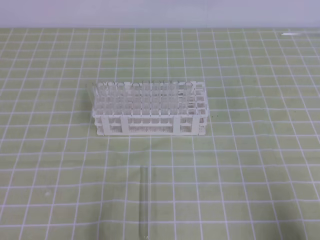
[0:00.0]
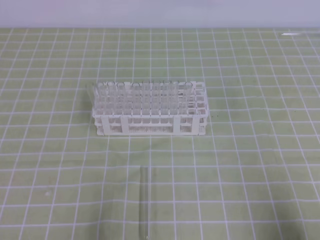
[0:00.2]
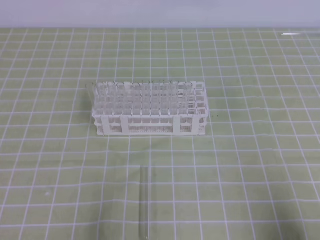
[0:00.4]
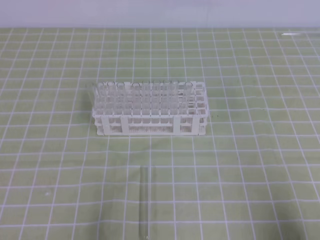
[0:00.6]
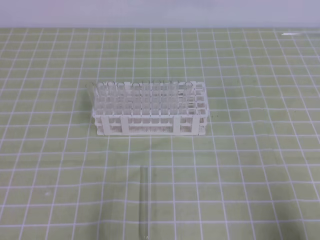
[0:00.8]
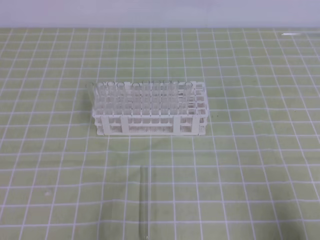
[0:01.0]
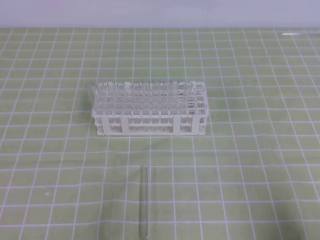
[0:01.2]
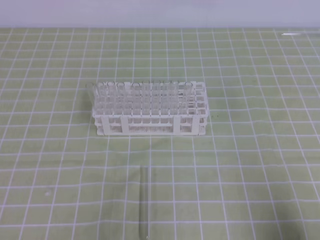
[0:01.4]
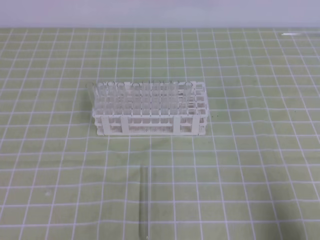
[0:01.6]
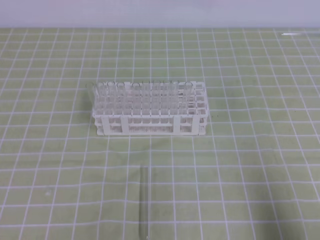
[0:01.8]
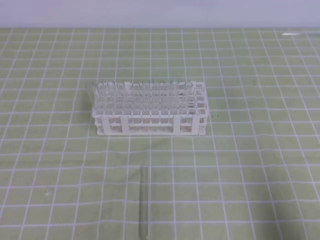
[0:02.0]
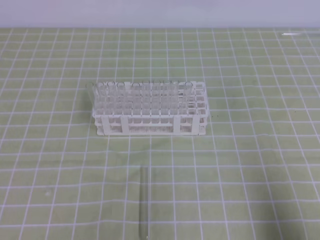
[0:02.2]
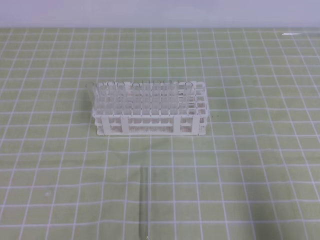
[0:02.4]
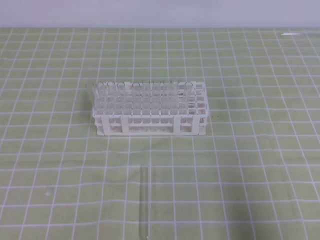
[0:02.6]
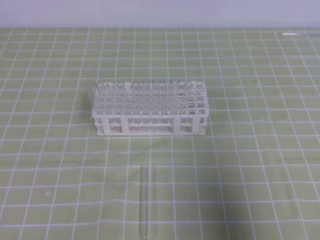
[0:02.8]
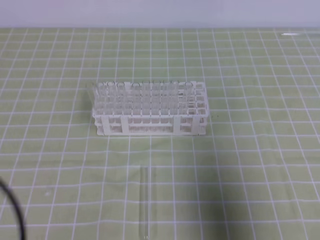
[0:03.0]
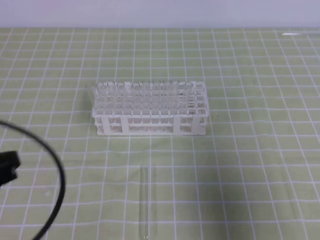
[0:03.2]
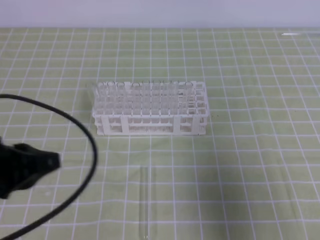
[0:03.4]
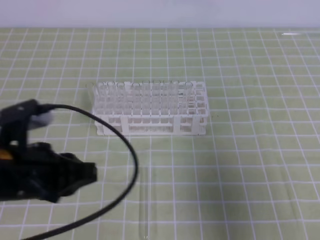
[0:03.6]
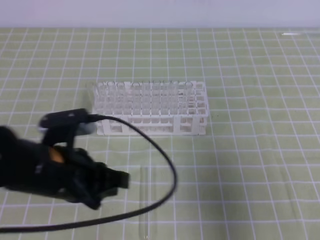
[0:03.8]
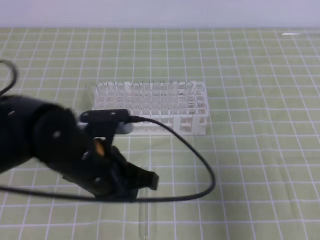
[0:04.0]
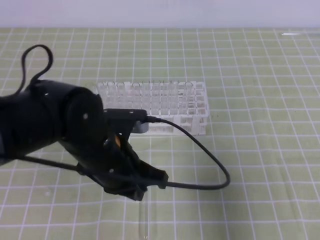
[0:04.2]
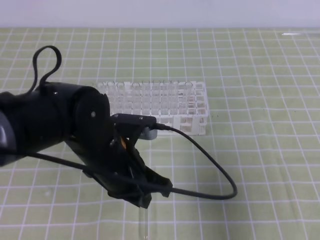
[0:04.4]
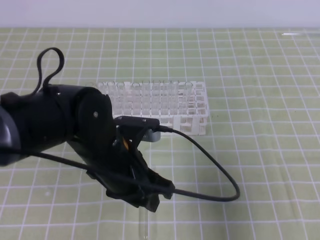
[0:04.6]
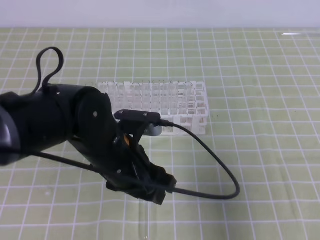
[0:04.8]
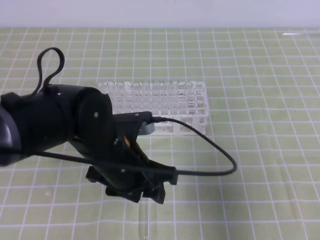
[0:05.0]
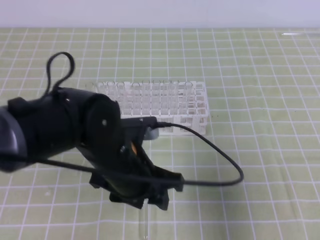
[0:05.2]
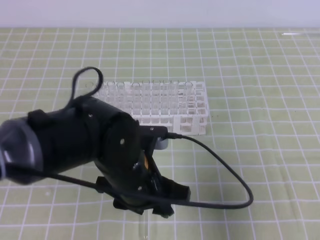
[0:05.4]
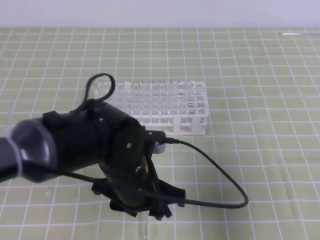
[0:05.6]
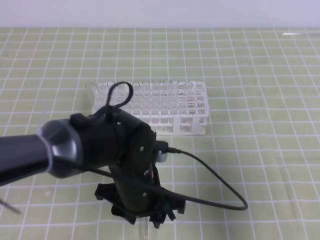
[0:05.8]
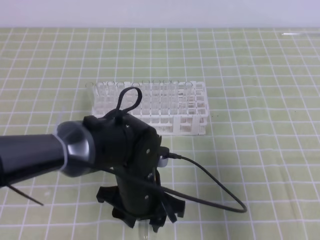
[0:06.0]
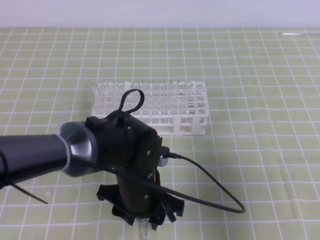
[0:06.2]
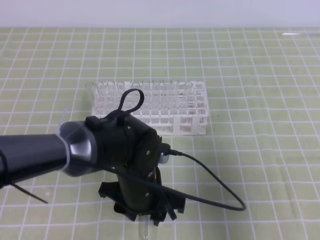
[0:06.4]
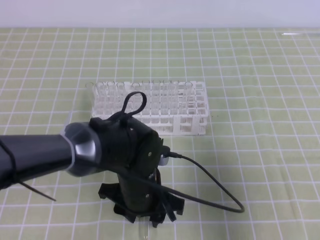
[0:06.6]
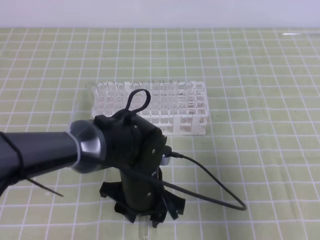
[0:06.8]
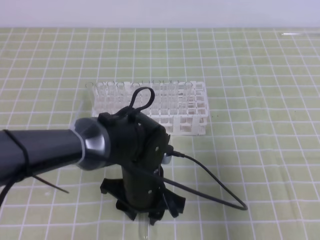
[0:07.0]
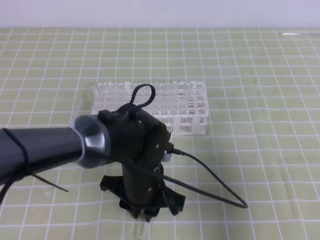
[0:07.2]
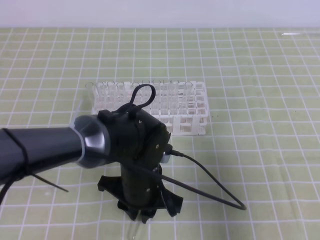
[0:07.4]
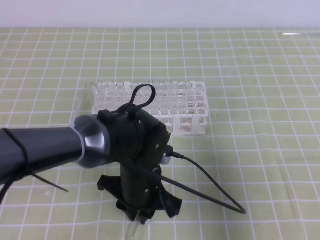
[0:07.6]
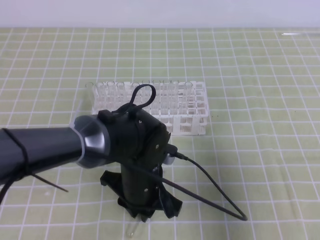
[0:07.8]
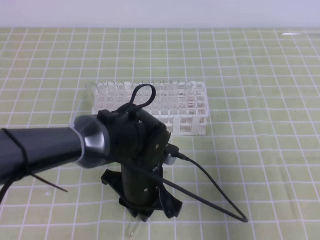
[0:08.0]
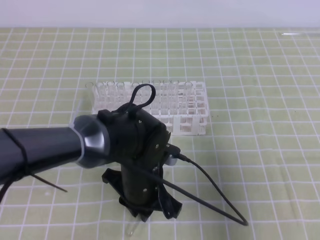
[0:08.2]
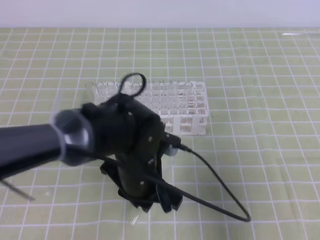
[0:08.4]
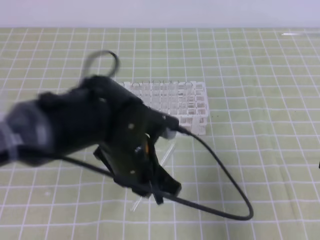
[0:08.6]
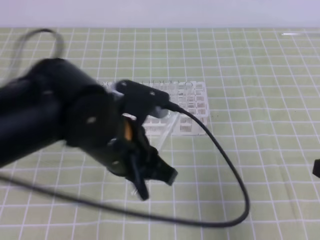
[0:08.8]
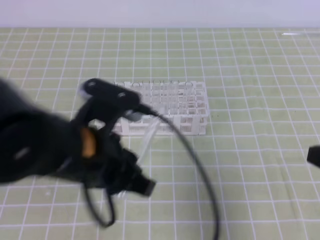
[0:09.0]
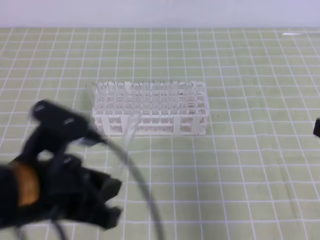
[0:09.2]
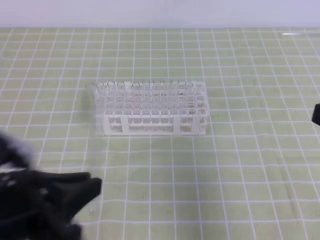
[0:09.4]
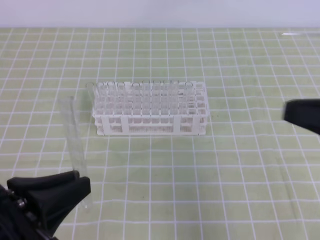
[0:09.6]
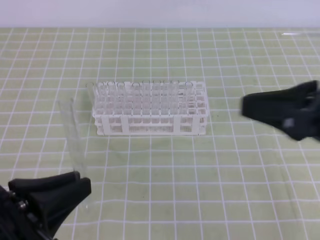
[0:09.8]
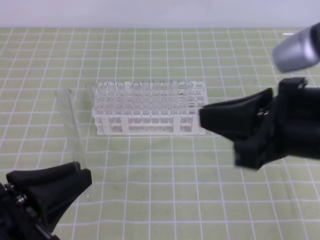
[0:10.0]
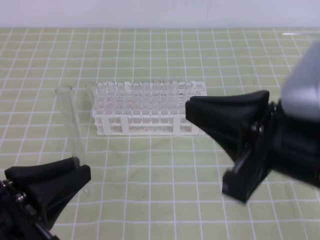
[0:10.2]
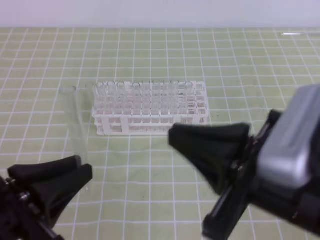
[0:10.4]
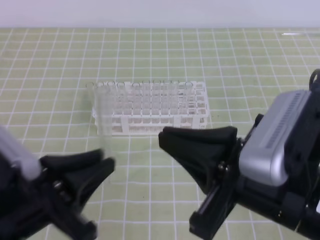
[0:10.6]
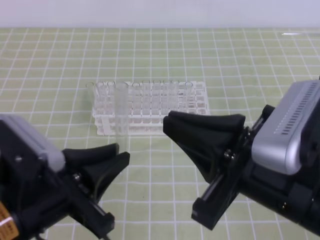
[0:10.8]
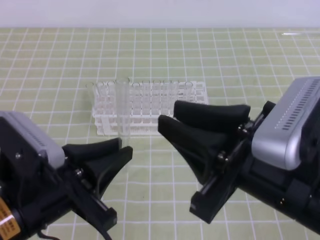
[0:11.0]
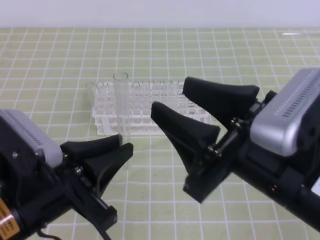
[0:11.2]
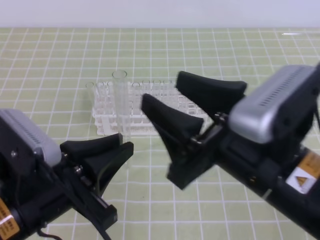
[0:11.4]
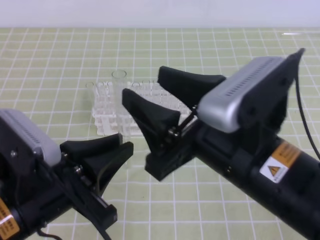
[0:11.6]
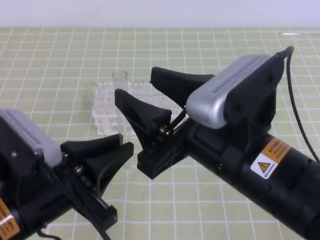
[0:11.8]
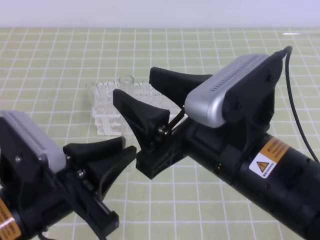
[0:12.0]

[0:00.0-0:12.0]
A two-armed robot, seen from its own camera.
0:01.6 to 0:03.0: Both grippers travel together upward, approximately 10 cm.
0:03.0 to 0:04.4: The left gripper heads to the right and forward, covering some 25 cm.
0:04.4 to 0:06.0: The left gripper heads downward, covering about 5 cm, and opens up.
0:06.0 to 0:07.6: The left gripper closes up.
0:07.6 to 0:09.0: The left gripper goes roughly 15 cm upward, to the left and backward.
0:09.0 to 0:10.4: The left gripper moves to the left and backward, approximately 10 cm; the right gripper goes roughly 15 cm to the left.
0:10.4 to 0:12.0: The right gripper travels to the left by roughly 5 cm, and opens its fingers.

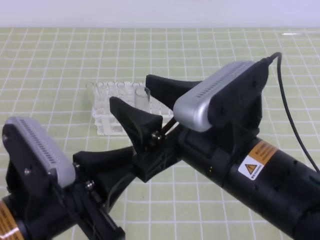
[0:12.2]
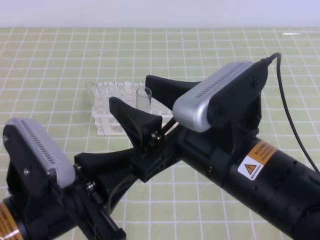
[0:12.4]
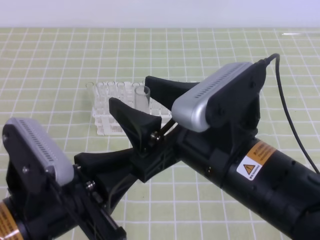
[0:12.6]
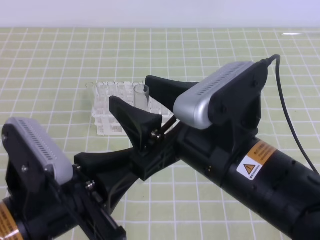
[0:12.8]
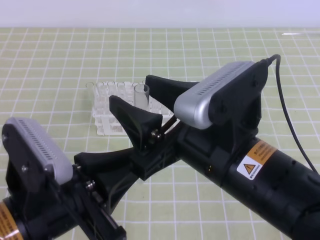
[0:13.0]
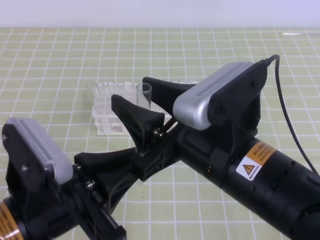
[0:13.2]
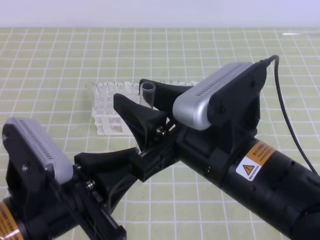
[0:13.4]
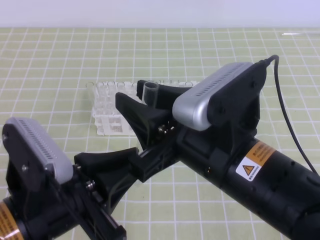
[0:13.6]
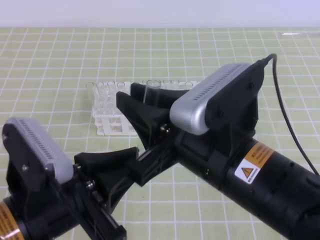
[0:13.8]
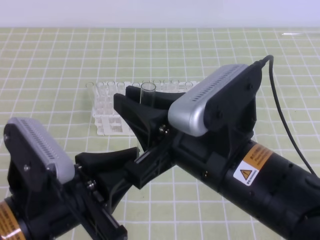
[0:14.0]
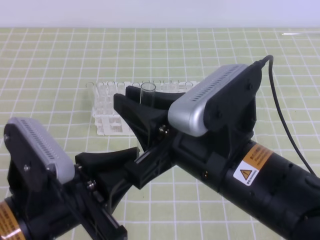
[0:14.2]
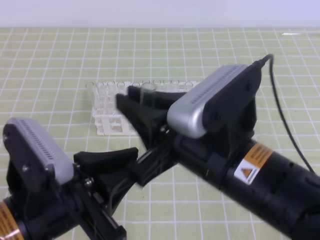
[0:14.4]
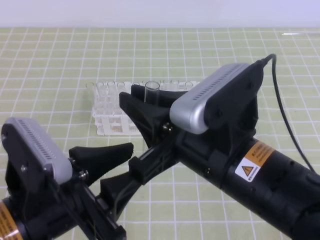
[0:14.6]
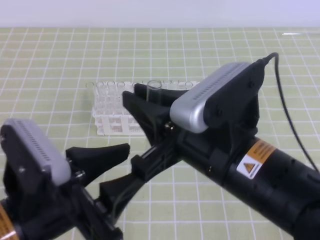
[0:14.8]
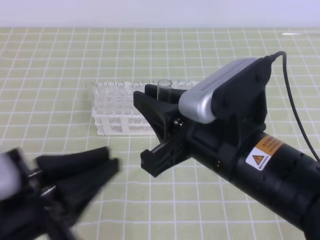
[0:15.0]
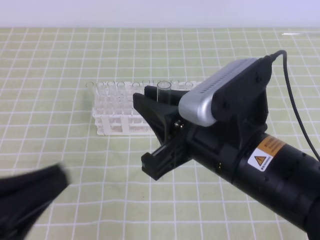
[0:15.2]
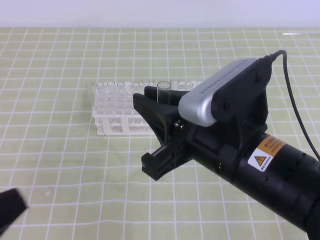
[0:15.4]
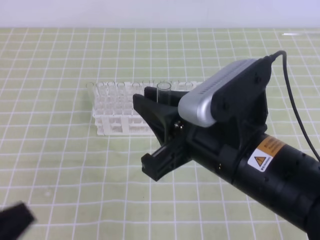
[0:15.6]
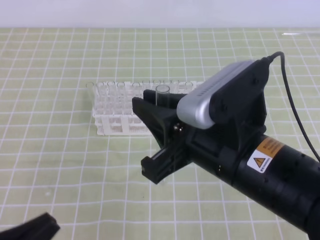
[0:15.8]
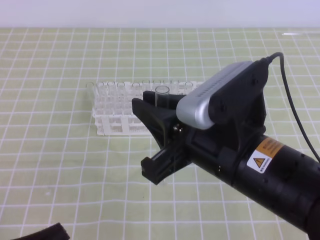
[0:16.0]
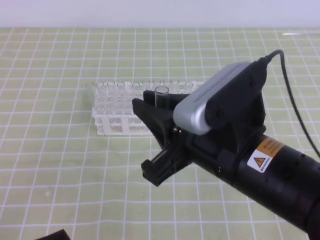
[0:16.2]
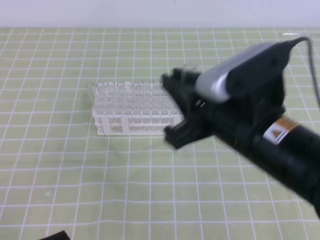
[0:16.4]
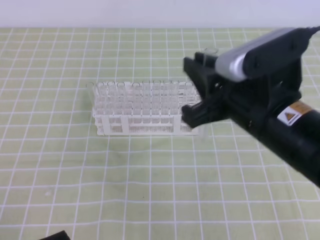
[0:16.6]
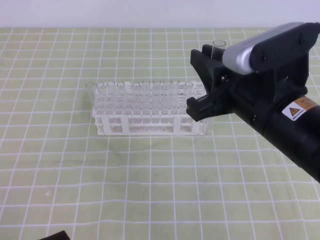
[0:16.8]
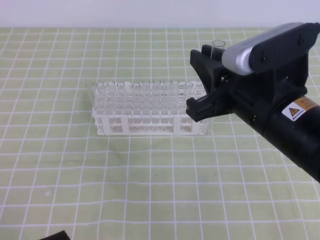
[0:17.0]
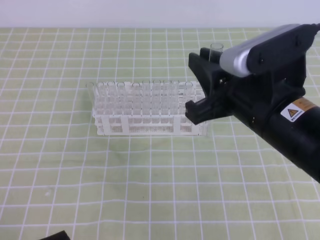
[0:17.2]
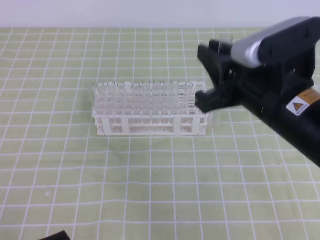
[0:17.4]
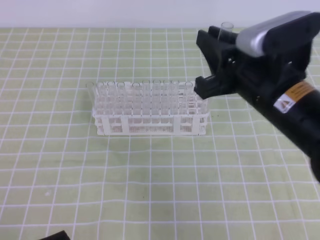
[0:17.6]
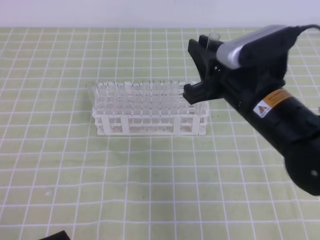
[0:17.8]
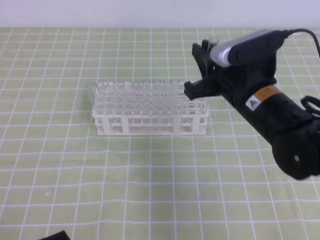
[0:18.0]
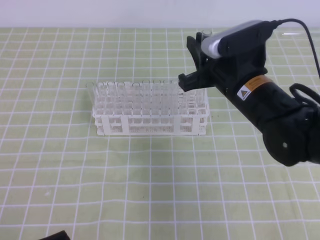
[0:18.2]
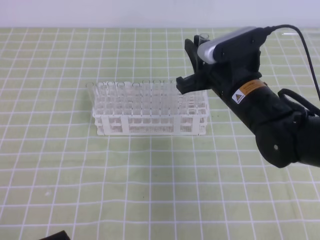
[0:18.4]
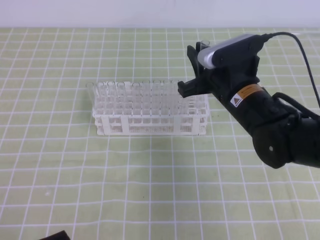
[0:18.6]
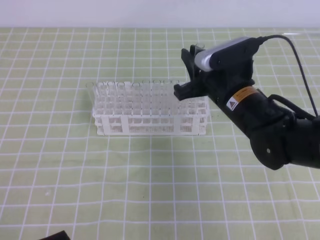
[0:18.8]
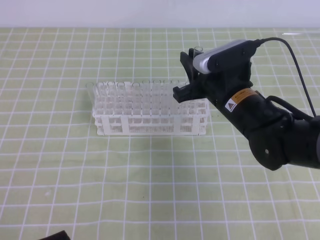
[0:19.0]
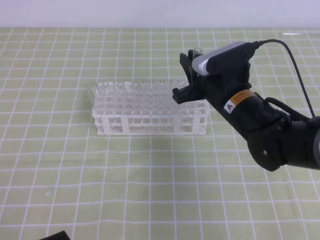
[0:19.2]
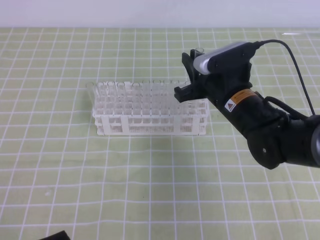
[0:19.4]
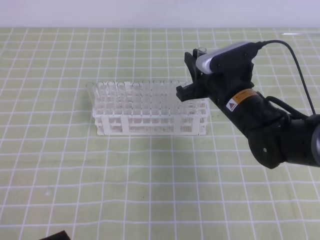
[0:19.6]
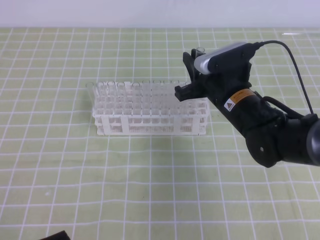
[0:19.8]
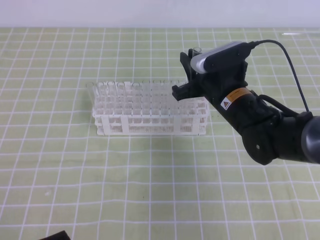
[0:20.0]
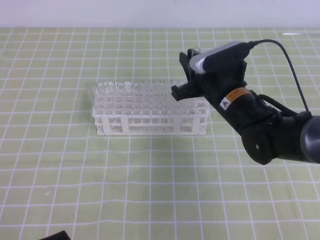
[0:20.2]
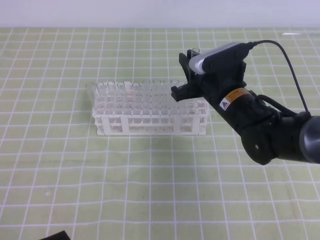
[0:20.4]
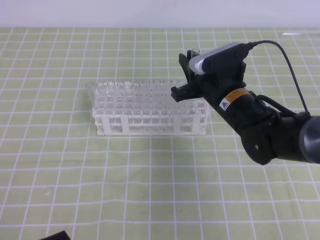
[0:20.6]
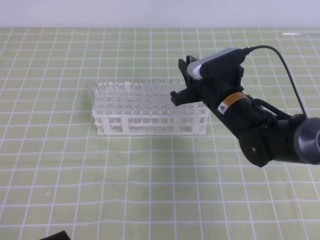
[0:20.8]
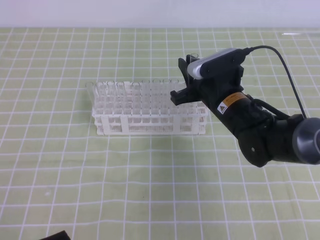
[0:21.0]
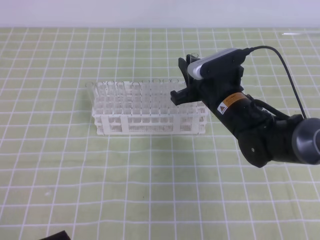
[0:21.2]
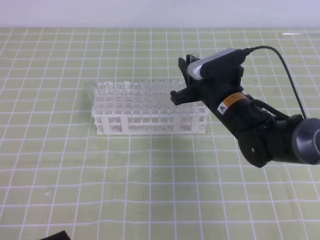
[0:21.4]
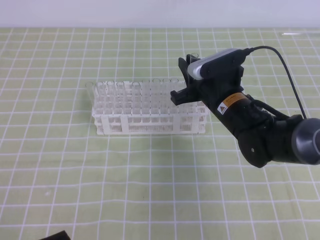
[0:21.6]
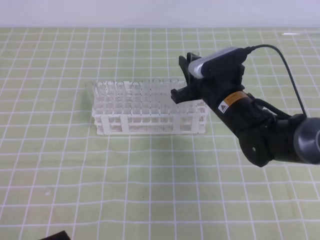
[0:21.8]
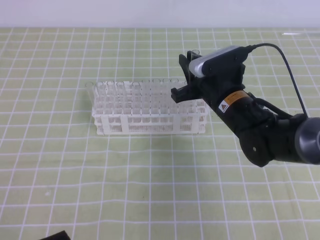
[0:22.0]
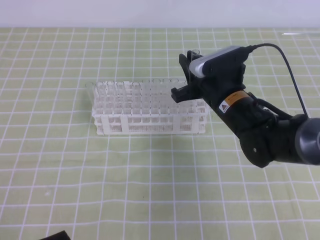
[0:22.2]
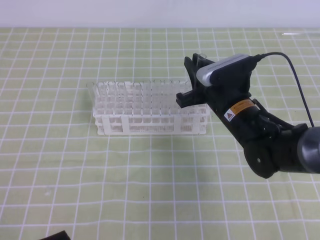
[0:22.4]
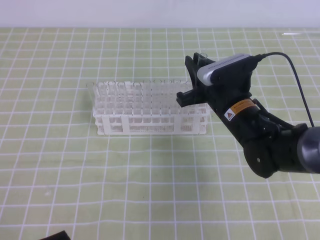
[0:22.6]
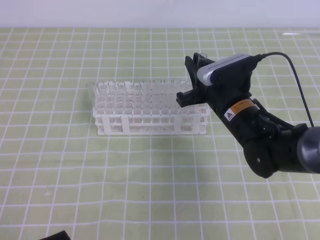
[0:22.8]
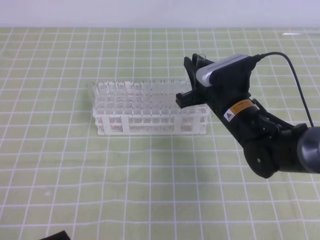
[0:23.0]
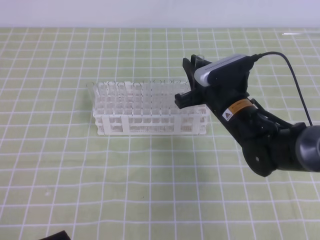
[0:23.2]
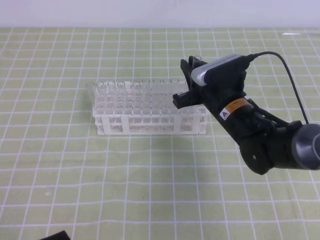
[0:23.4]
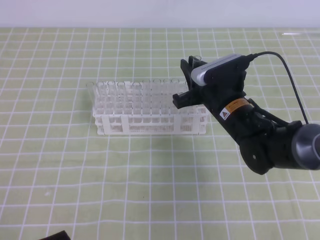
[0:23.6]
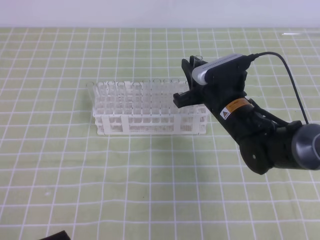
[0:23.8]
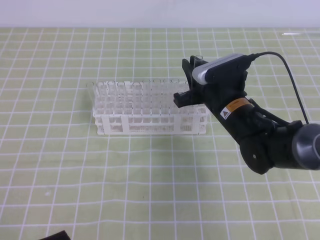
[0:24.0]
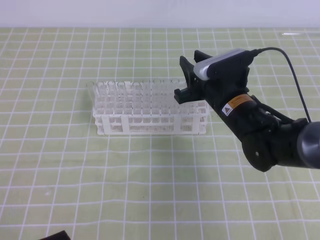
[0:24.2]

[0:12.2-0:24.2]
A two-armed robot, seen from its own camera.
0:12.2 to 0:13.8: The right gripper closes up.
0:13.8 to 0:15.2: The left gripper moves to the left, about 5 cm, and opens, then closes once more.
0:15.2 to 0:16.6: The left gripper is displaced downward by some 10 cm; the right gripper moves approximately 5 cm.
0:16.6 to 0:18.2: The right gripper is displaced forward and downward by about 10 cm.
0:18.2 to 0:19.8: The right gripper moves downward, approximately 5 cm.
0:19.8 to 0:22.6: The grippers stay close to where they were, moving slightly.
0:22.6 to 0:24.2: Both grippers stay put.
